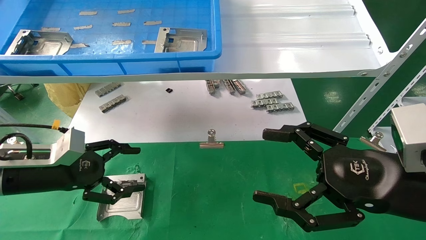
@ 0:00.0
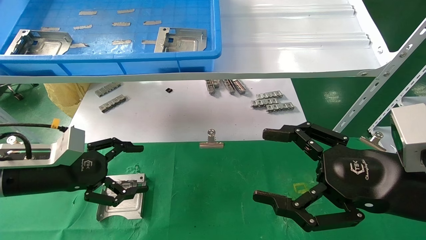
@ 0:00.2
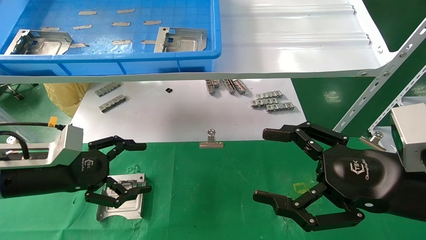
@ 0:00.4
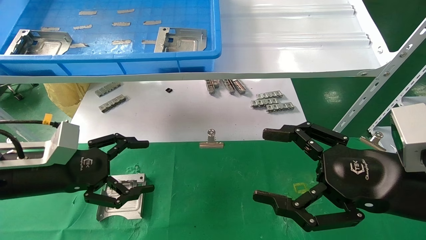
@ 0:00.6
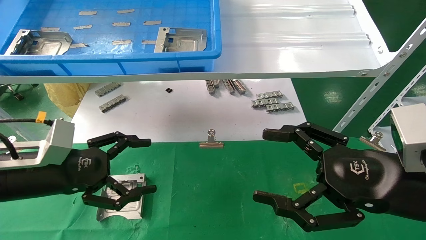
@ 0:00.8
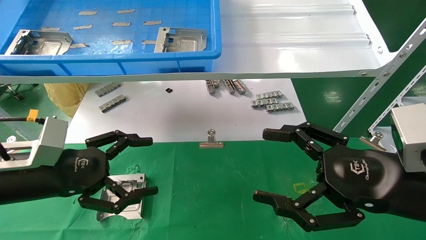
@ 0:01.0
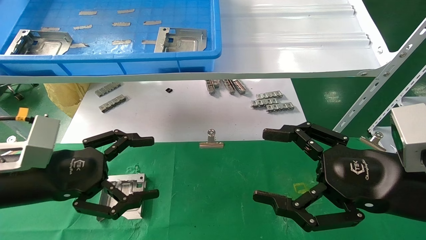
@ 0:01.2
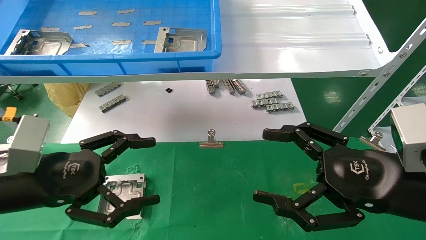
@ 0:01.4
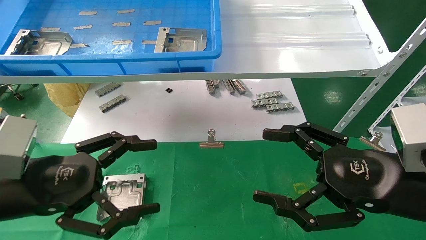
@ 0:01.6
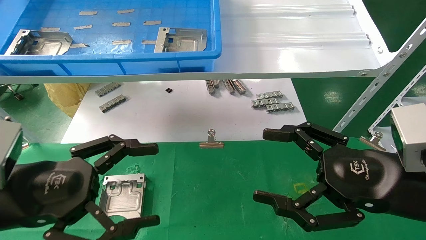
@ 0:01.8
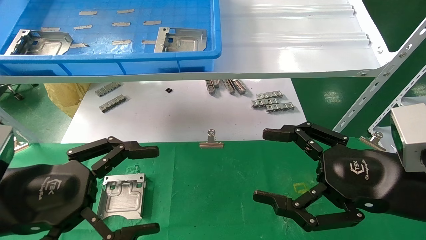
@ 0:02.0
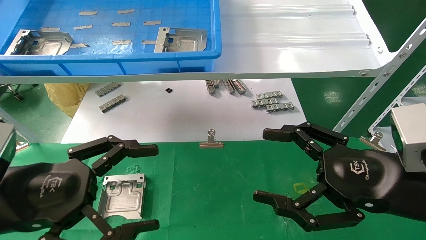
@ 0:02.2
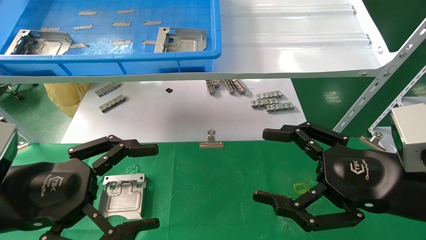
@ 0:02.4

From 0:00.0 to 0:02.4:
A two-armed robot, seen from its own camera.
Task of the whole recording: use the mechanical arm to pick up the parts and place them on the table.
From 0:00.0 to 0:01.2: The left gripper heads backward, covering approximately 5 cm.
From 0:01.2 to 0:02.4: The left gripper moves backward, approximately 5 cm.

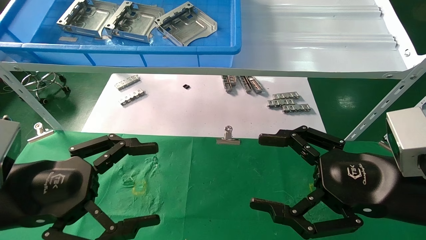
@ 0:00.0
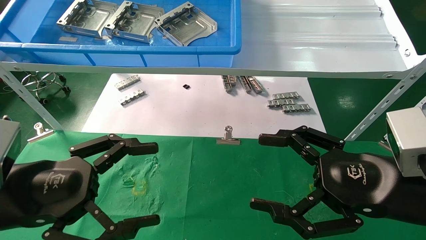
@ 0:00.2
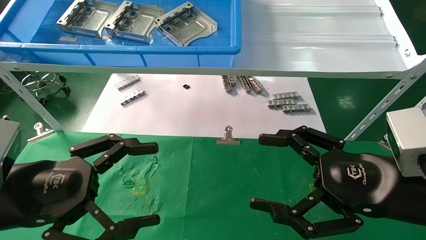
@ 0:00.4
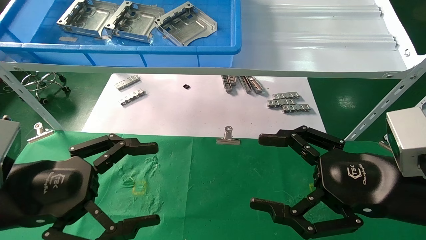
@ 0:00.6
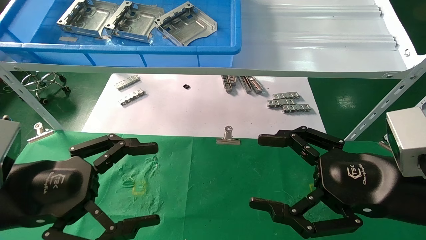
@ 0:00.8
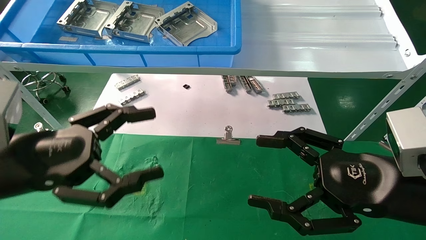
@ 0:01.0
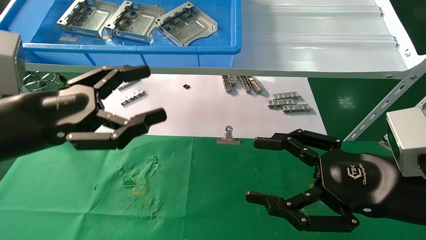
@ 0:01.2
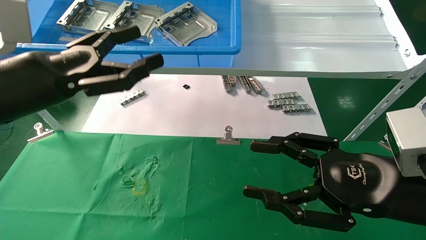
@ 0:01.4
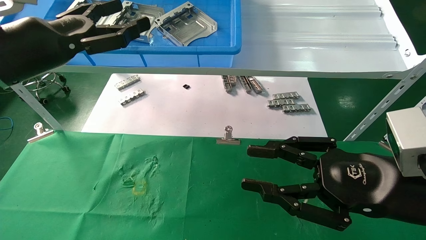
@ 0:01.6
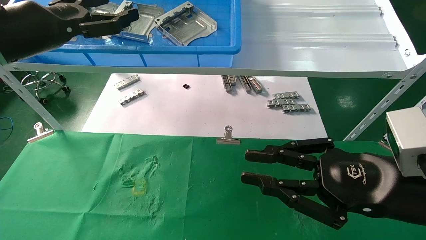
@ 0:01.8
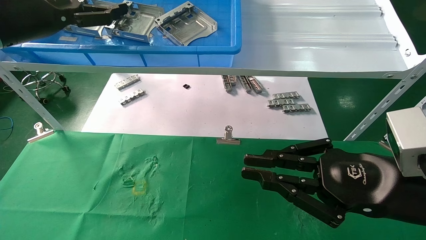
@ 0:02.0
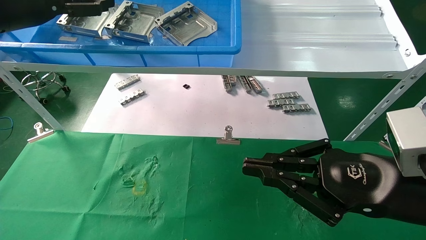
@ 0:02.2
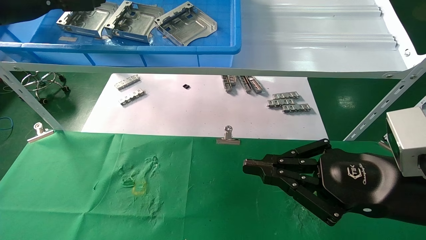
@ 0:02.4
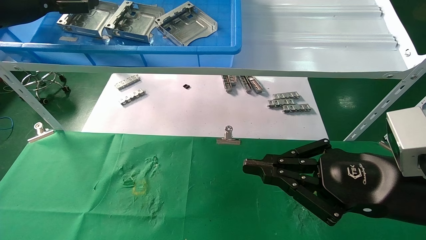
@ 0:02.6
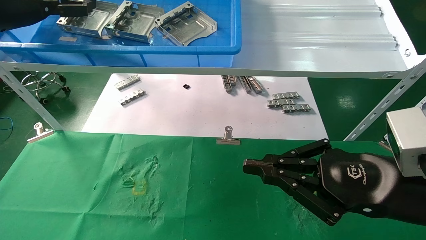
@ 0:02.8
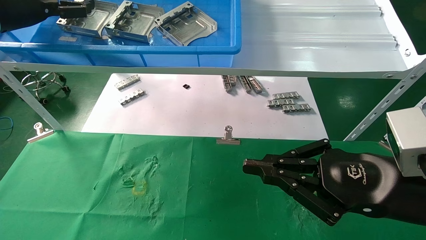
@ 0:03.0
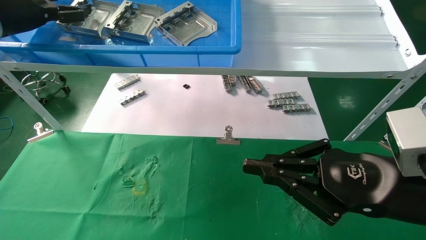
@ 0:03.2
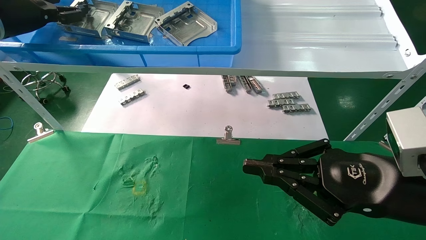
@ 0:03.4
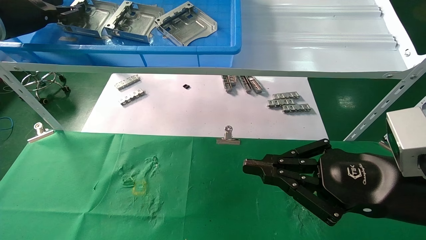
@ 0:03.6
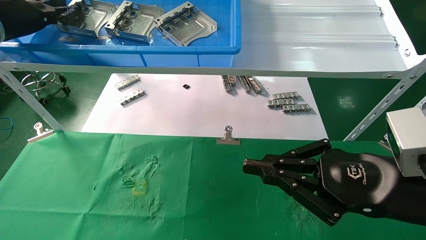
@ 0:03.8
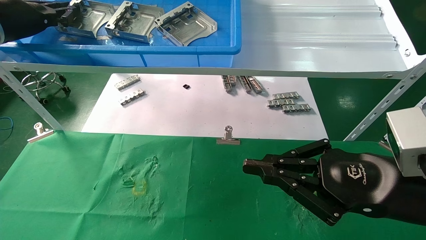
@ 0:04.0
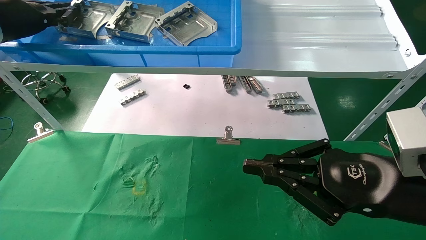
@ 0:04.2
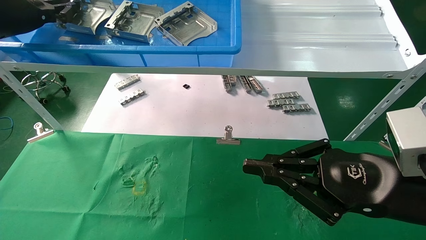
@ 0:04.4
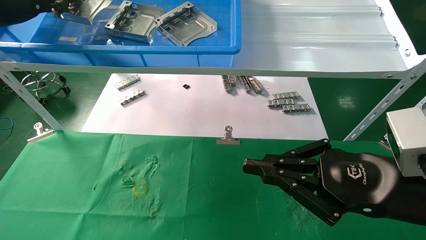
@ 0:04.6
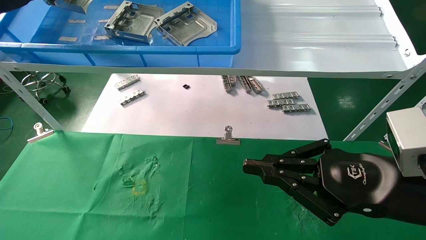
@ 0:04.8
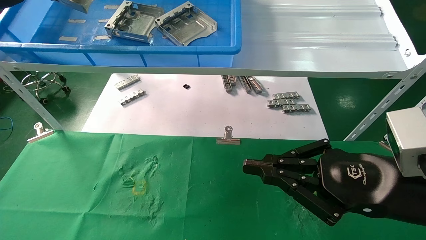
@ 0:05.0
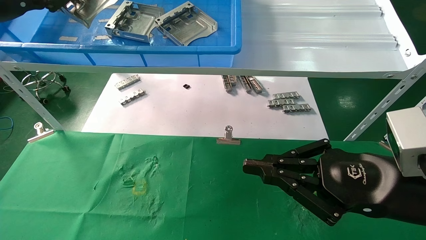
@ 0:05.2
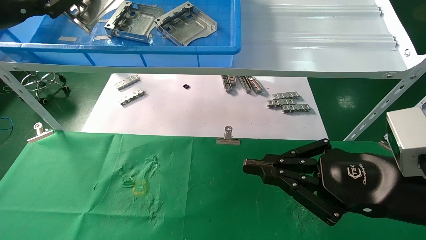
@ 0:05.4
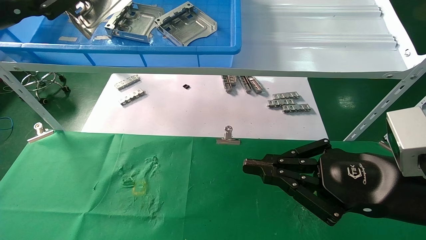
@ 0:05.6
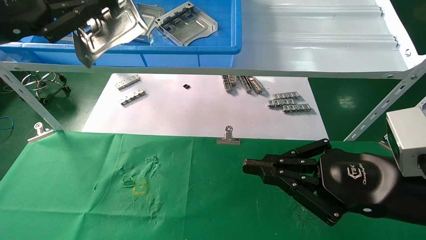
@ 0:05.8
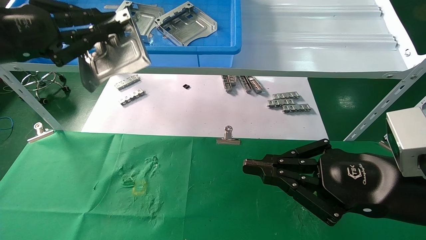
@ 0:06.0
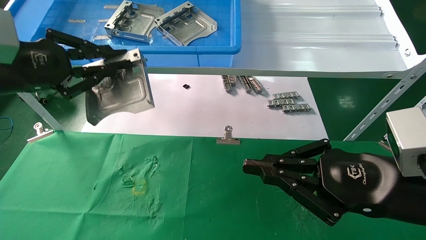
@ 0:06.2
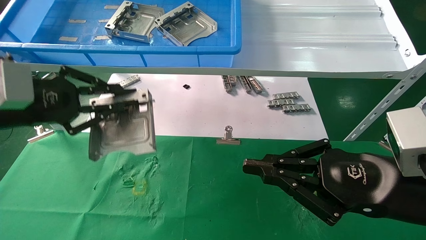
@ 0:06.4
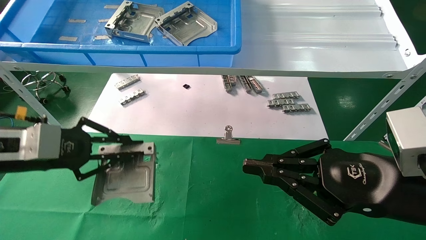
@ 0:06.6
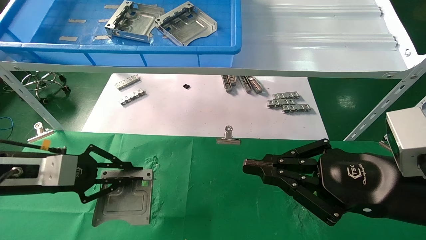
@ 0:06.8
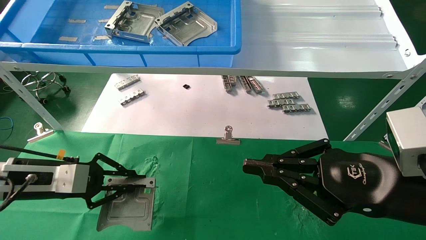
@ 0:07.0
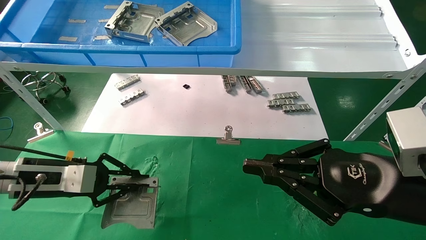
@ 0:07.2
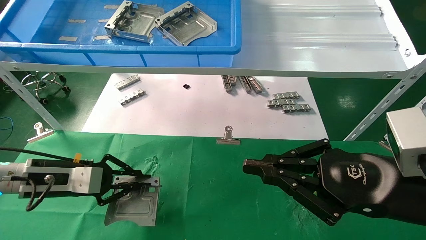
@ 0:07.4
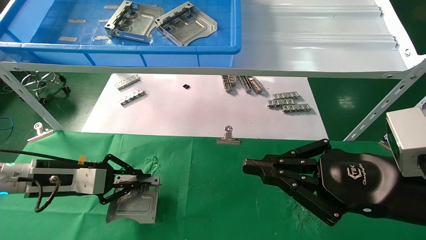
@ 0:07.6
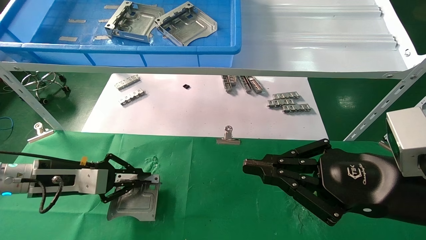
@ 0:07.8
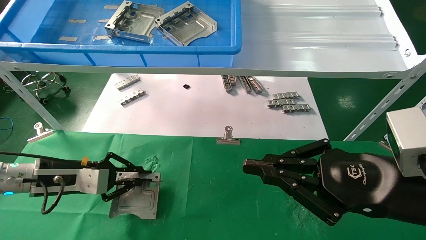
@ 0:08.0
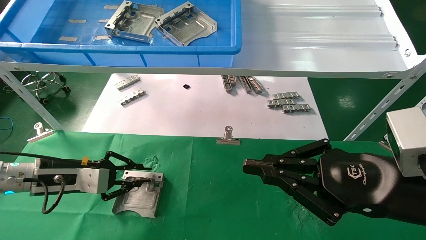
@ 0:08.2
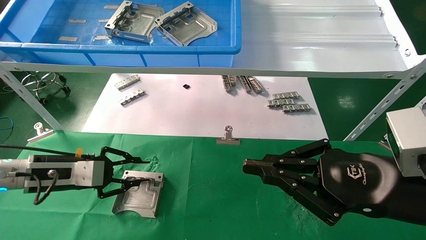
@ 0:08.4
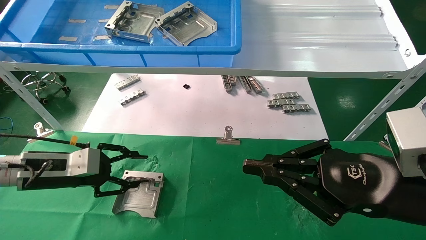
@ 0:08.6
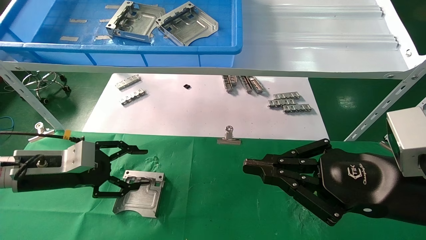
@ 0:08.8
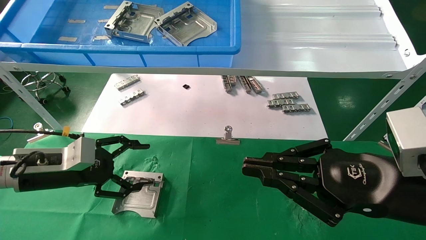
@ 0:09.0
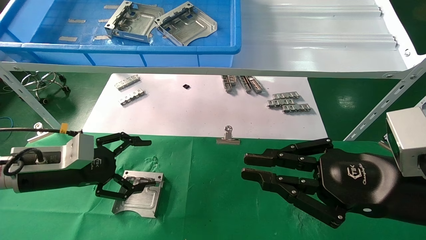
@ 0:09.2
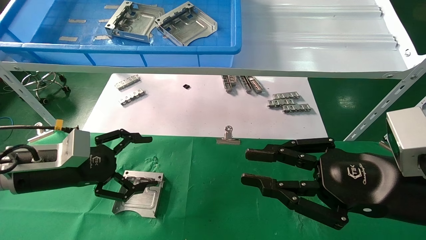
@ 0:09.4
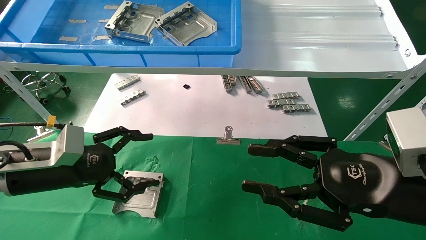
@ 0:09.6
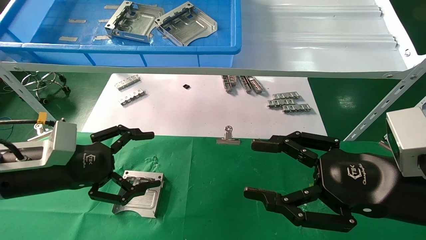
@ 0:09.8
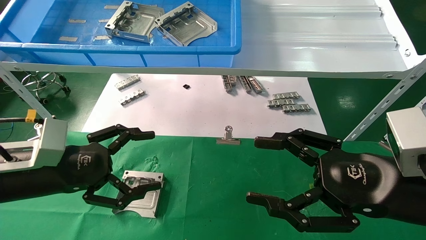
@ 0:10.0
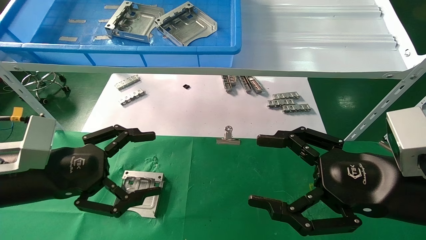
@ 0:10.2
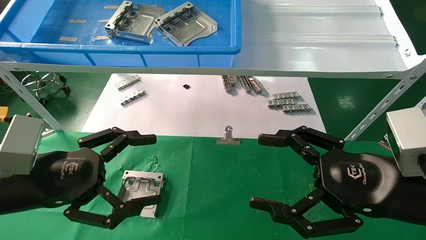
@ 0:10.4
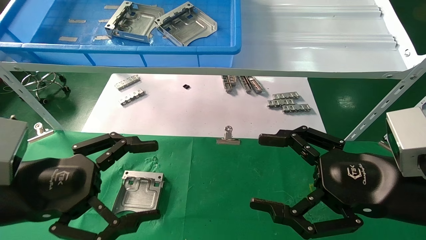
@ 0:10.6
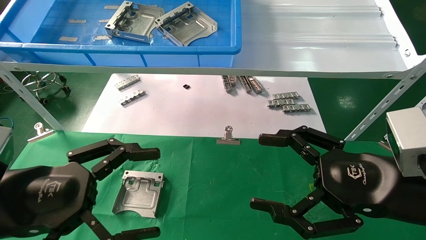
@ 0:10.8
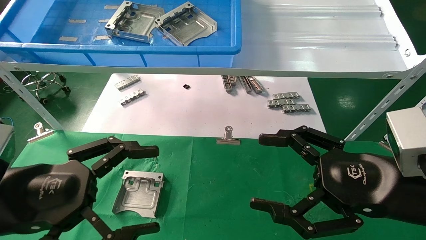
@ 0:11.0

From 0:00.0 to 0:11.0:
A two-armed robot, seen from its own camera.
Task of the whole recording: use the mechanical arm to pick up the parts and place them on the table.
Step, from 0:01.2 to 0:04.2: Pick up the hard drive bracket from the feeding area.
Step, from 0:04.4 to 0:08.4: Place the hard drive bracket into the box.
From 0:00.0 to 0:01.6: The right gripper closes up. The left gripper heads upward and forward, covering some 20 cm.
From 0:01.6 to 0:03.2: The right gripper closes its fingers; the left gripper travels forward, to the left and upward by approximately 15 cm.
From 0:03.2 to 0:04.8: The left gripper closes.
From 0:04.8 to 0:06.2: The left gripper shifts about 15 cm downward and backward.
From 0:06.2 to 0:07.8: The left gripper shifts some 20 cm downward.
From 0:07.8 to 0:09.4: The left gripper moves about 5 cm, and opens.
From 0:09.4 to 0:11.0: The right gripper opens. Meanwhile the left gripper moves backward, roughly 15 cm.
